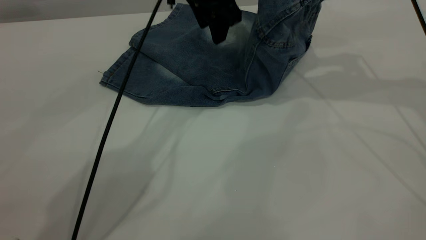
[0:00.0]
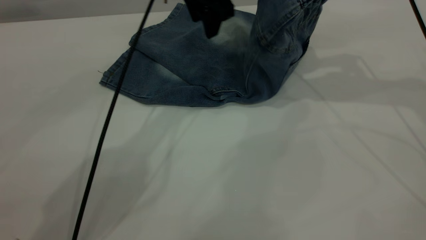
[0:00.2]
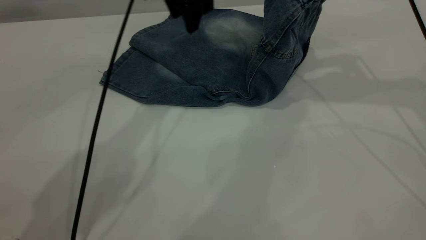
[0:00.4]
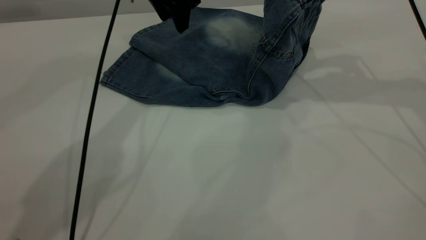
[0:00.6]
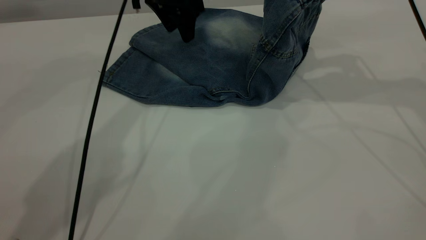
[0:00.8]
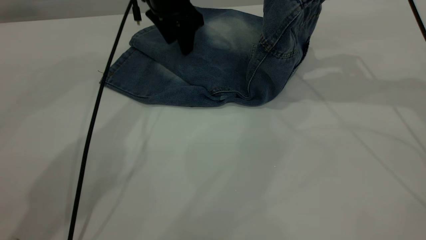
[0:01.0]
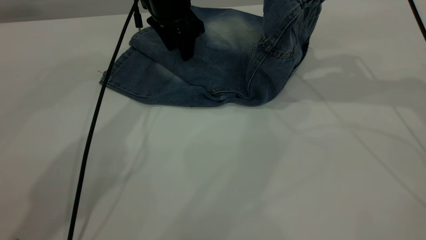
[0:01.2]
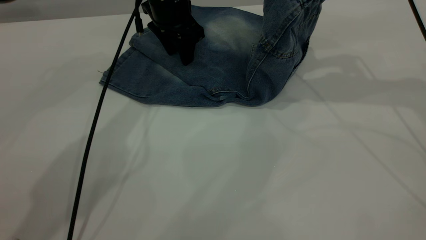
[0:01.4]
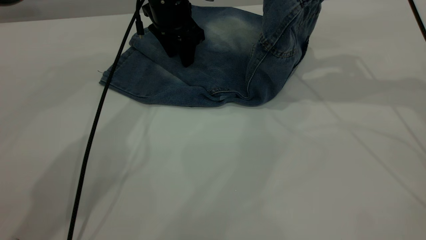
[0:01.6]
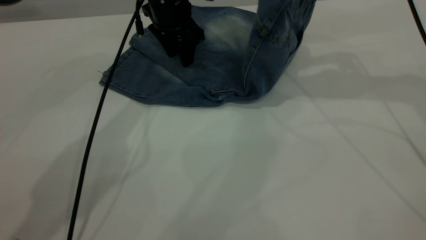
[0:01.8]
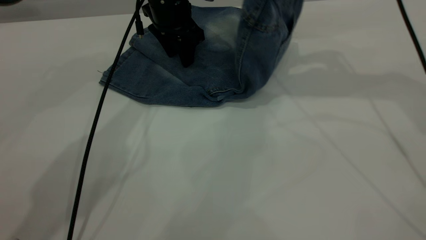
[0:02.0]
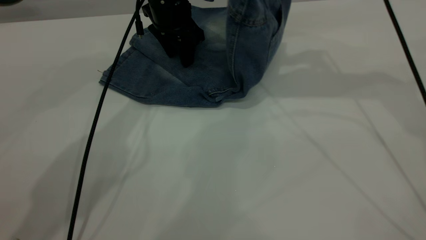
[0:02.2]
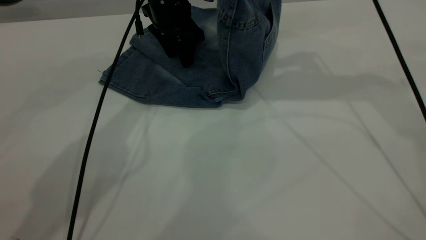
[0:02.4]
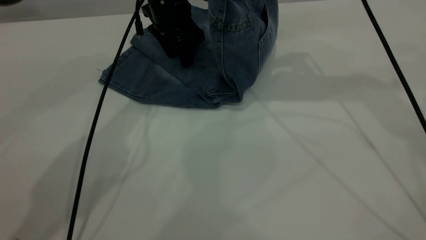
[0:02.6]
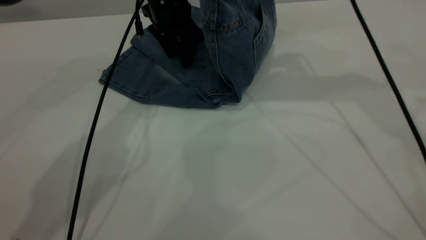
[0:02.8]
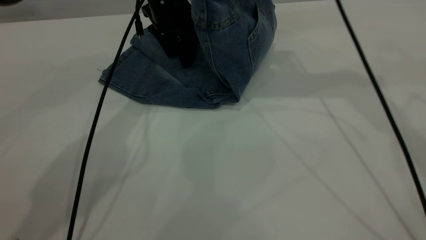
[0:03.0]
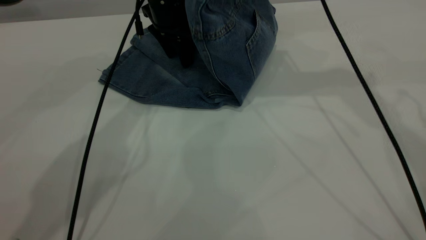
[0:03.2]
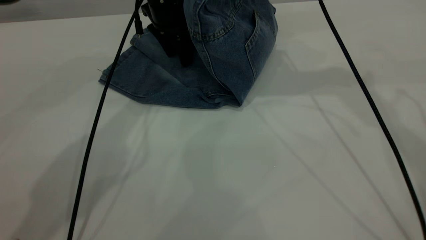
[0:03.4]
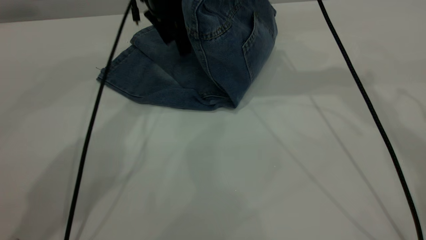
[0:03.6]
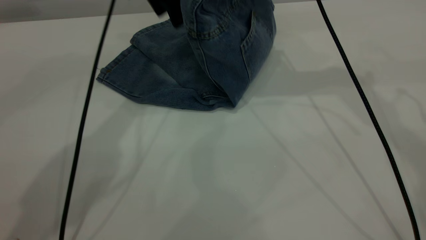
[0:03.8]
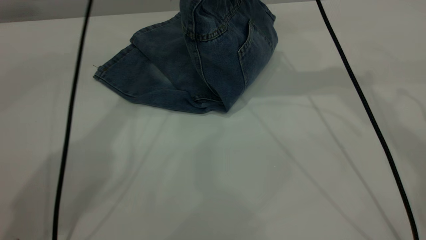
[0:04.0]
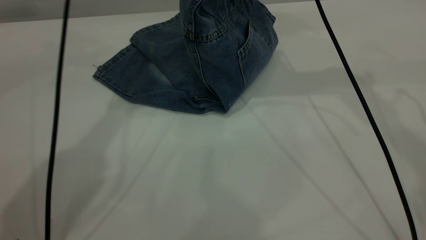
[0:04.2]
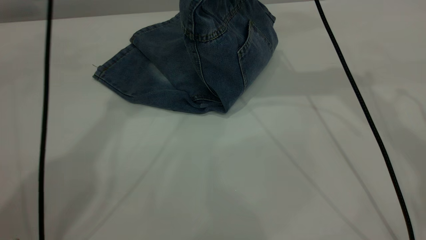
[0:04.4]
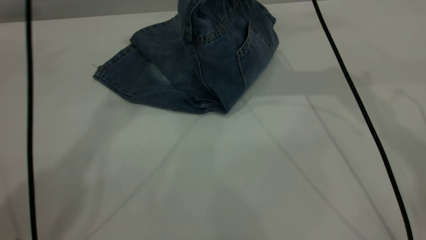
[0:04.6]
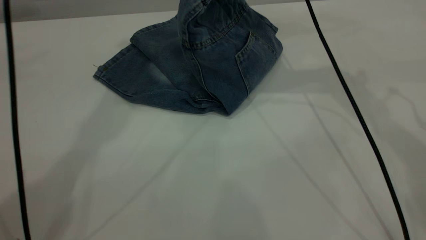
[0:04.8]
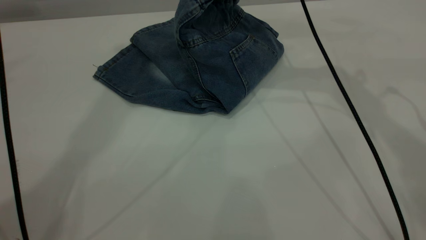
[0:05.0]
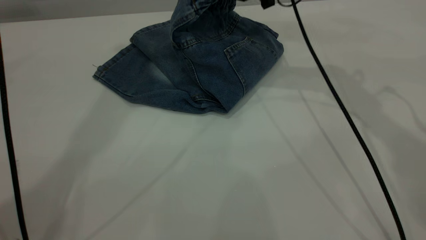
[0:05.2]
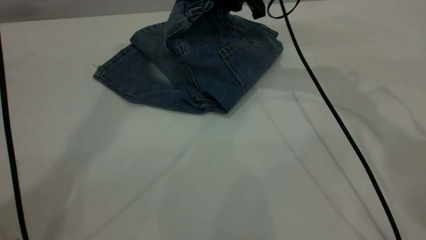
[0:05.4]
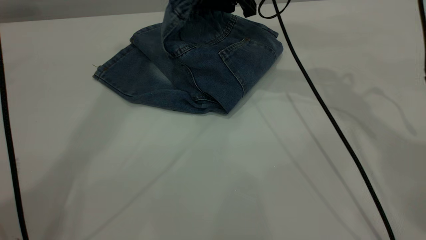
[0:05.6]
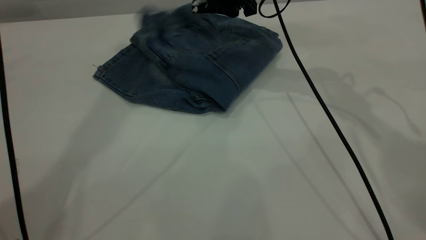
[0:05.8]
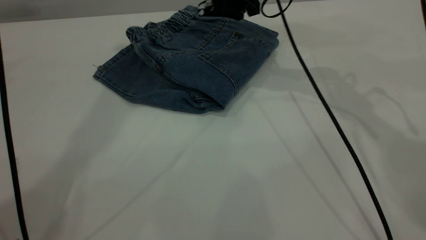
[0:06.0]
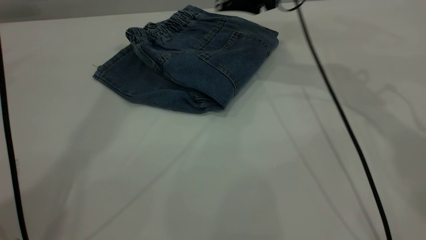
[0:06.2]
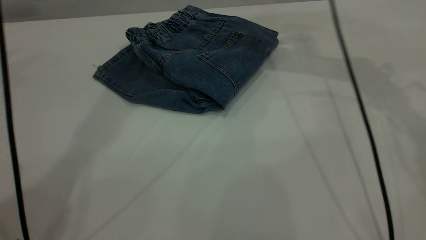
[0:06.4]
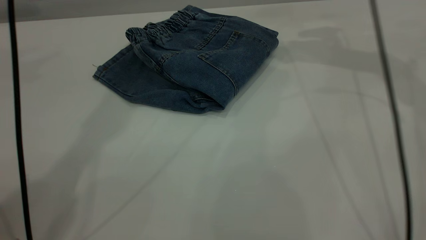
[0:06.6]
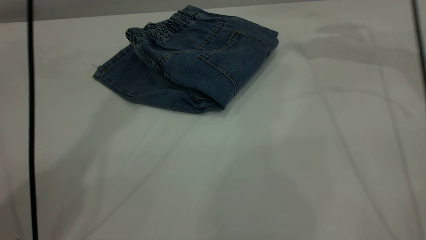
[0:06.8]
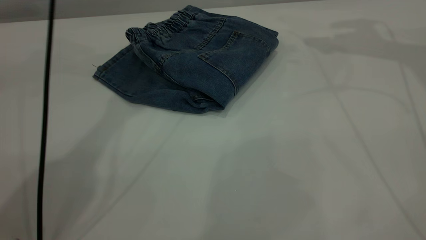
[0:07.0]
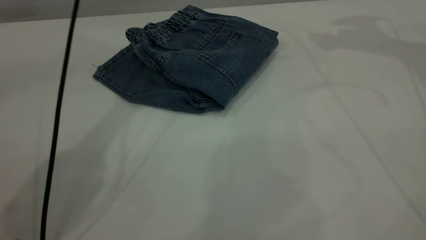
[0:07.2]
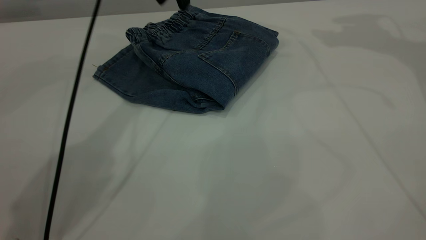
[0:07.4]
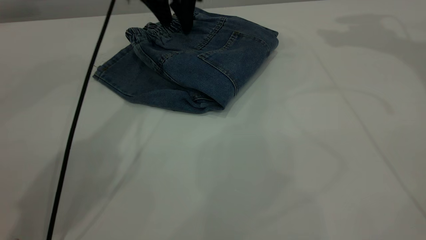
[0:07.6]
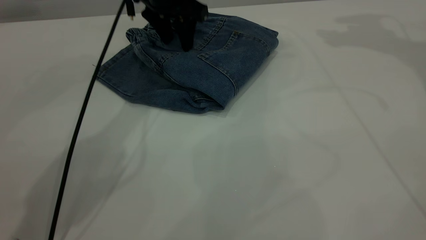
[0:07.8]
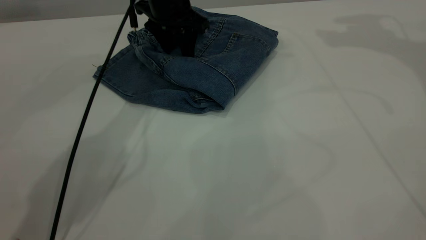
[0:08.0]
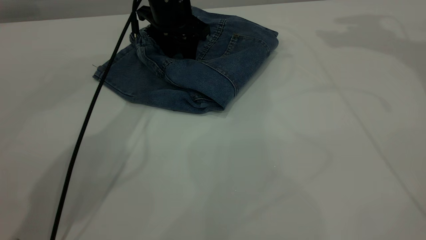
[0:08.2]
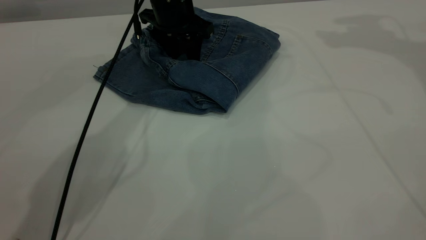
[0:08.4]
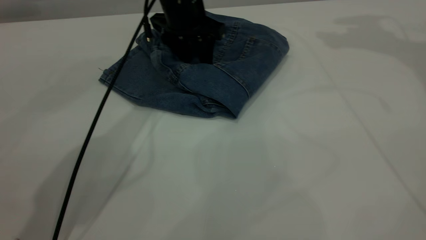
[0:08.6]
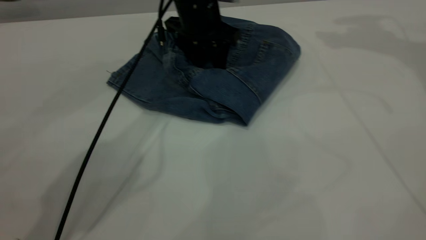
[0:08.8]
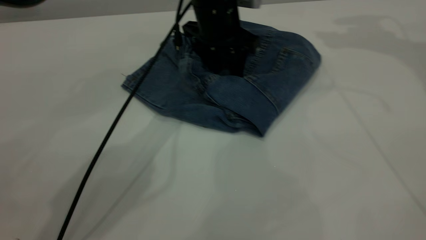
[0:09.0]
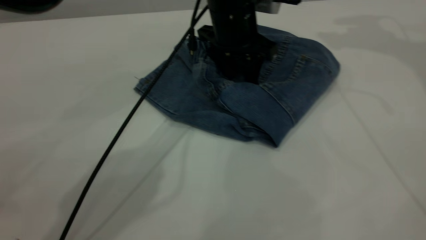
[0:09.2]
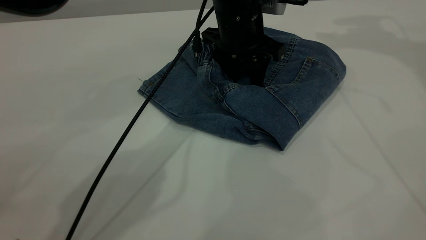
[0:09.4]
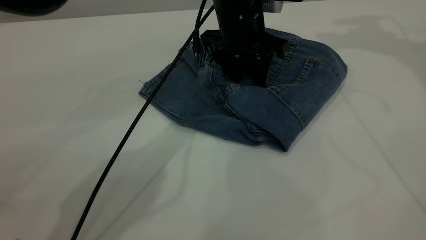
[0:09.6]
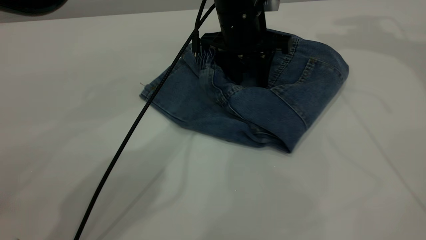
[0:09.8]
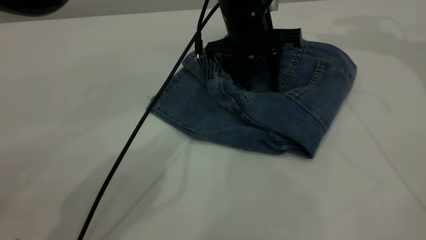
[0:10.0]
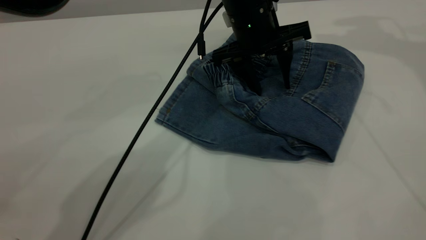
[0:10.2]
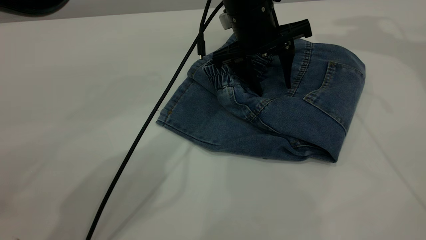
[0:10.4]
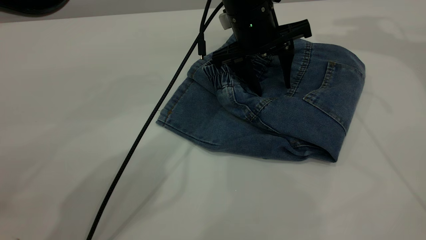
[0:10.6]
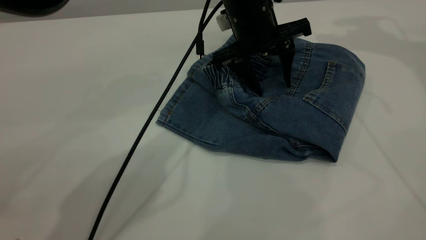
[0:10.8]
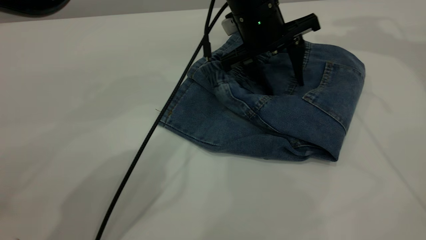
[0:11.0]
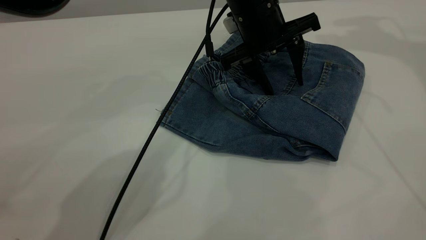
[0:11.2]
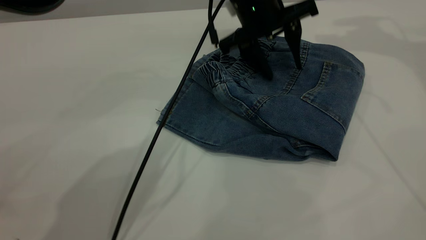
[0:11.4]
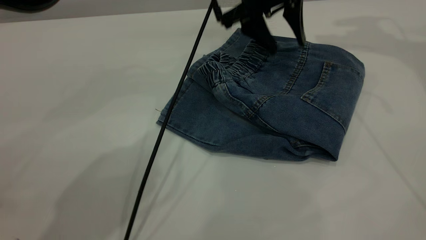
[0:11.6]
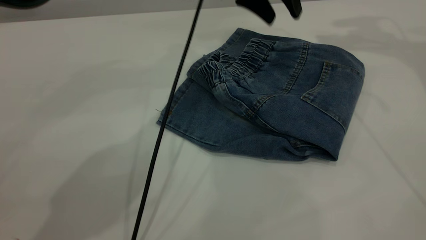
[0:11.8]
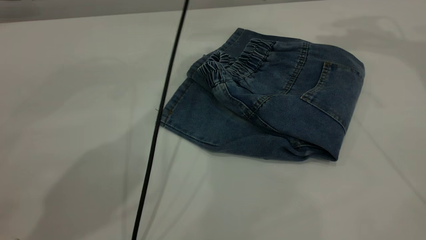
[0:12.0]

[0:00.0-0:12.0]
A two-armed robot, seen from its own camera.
Step, 0:00.0 to 0:06.8: Fold your pants from right to left.
0:00.0 to 0:01.6: The left gripper goes approximately 10 cm to the left and downward.
0:01.6 to 0:03.0: The right gripper shifts some 10 cm to the left.
0:03.0 to 0:04.4: The left gripper travels upward by some 25 cm.
0:04.4 to 0:06.0: The left gripper goes roughly 10 cm upward and backward. Meanwhile the right gripper is displaced downward by about 10 cm, and opens its fingers.
0:06.0 to 0:07.6: The left gripper travels downward by approximately 30 cm. Meanwhile the right gripper travels to the right and upward by roughly 25 cm.
0:07.6 to 0:09.0: The left gripper travels to the right, downward and backward by roughly 10 cm.
0:10.4 to 0:12.0: The left gripper heads upward and forward, covering approximately 15 cm.

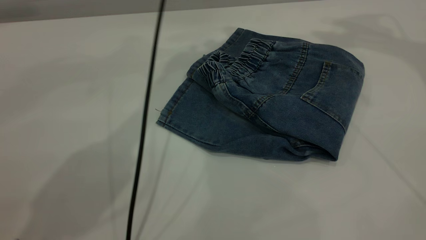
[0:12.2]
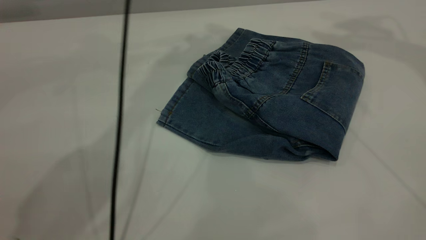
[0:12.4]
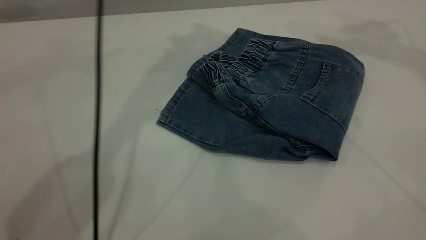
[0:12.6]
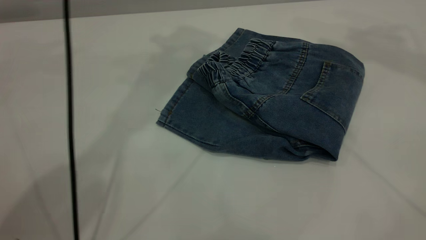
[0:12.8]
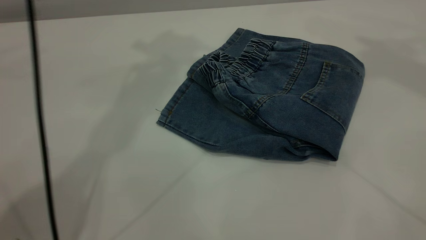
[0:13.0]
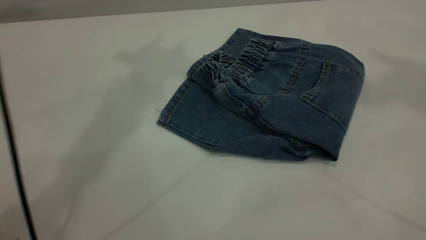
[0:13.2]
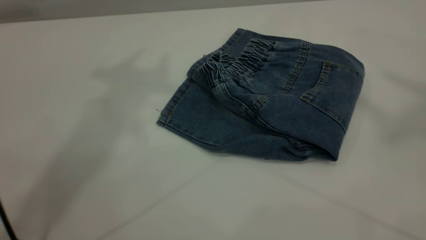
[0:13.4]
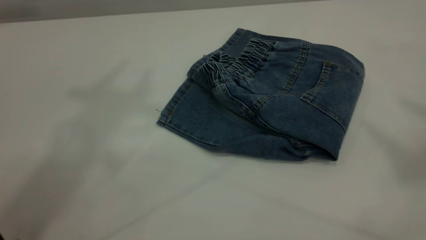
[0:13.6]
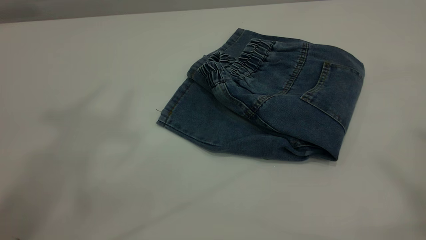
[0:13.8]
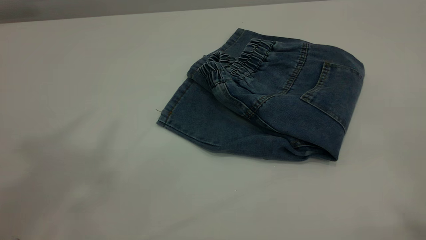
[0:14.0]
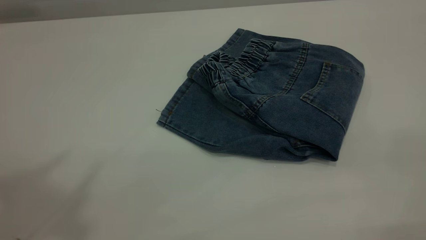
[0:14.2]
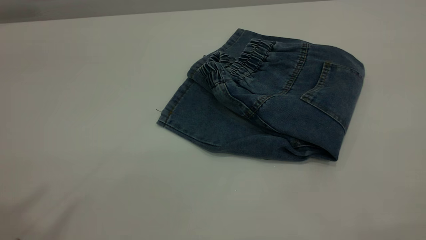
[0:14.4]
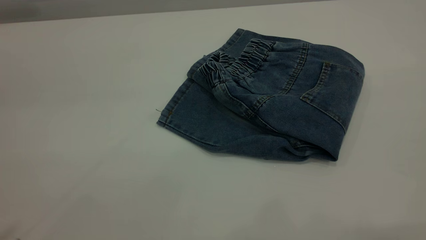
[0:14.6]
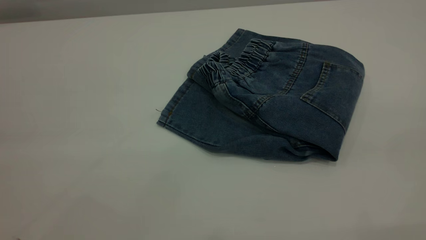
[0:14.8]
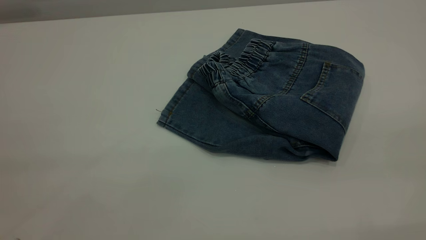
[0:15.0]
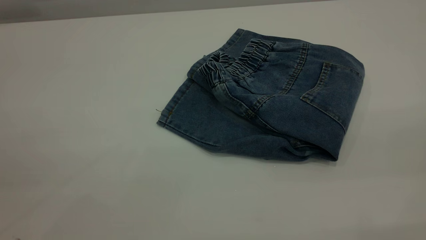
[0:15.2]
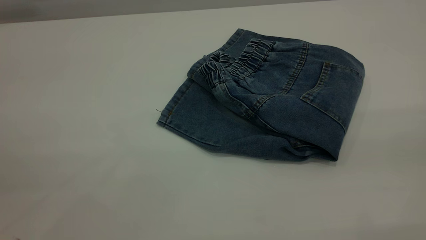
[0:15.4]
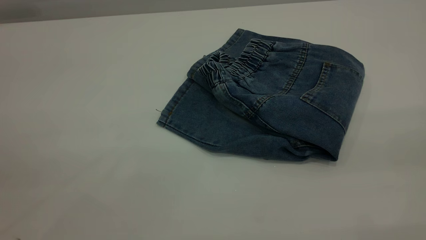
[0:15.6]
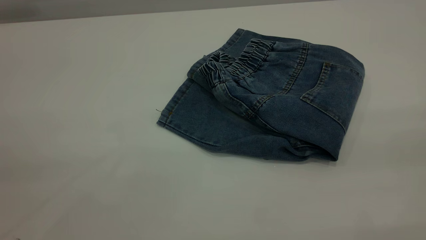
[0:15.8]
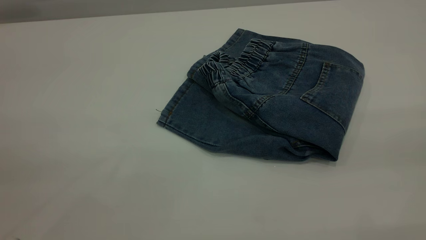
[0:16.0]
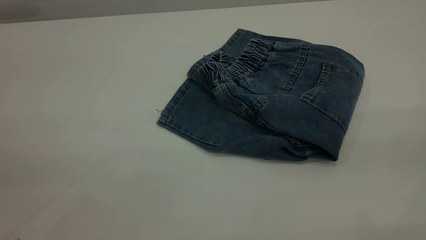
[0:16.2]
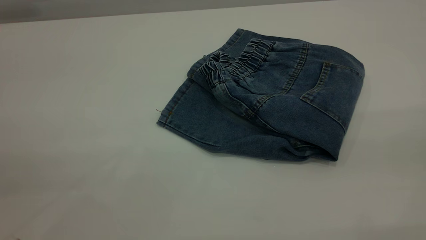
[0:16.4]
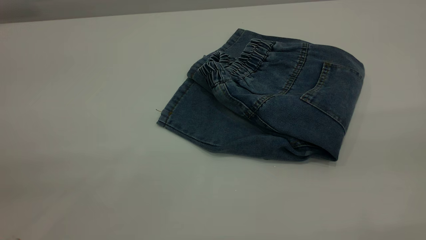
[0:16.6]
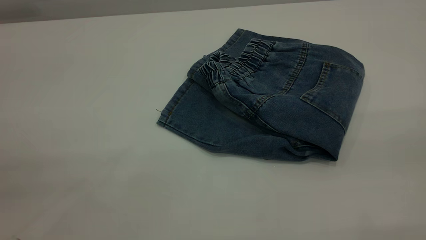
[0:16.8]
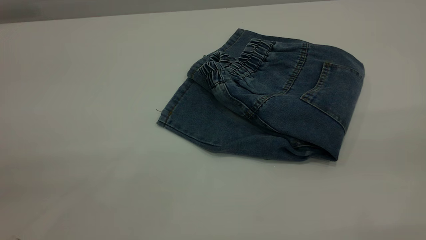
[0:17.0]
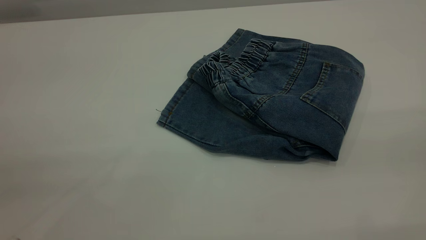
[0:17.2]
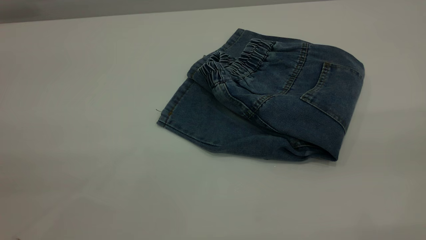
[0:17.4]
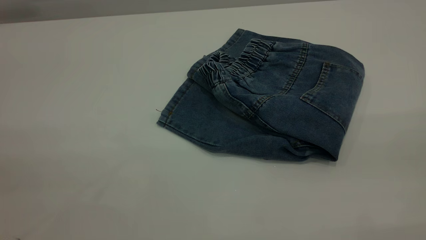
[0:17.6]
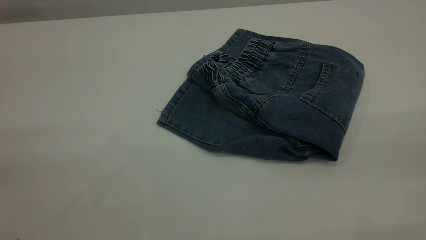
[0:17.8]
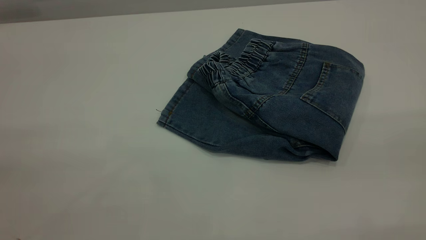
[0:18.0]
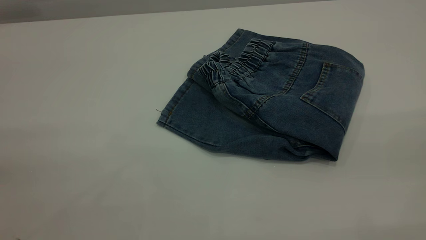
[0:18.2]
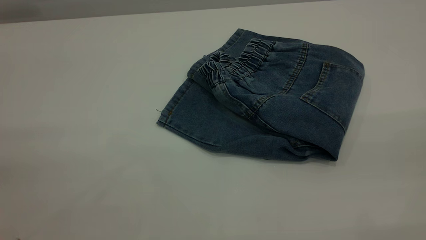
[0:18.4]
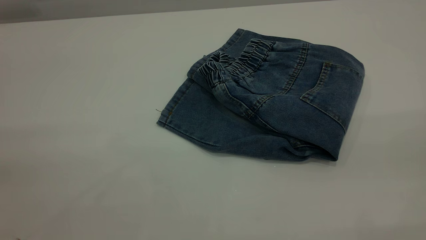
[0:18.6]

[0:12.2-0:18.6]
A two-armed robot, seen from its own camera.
0:12.2 to 0:13.8: The left gripper heads upward, backward and to the left, covering about 50 cm. Meanwhile the right gripper moves backward and upward, approximately 40 cm.
